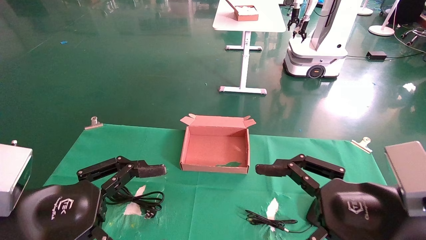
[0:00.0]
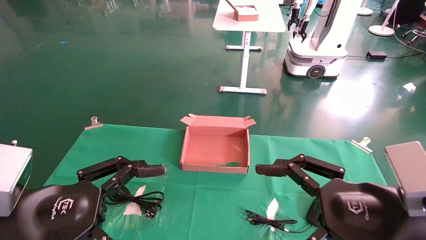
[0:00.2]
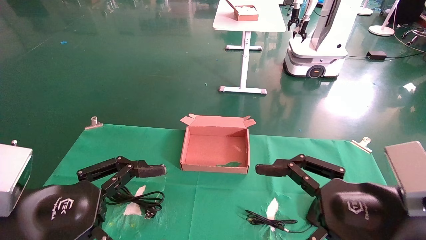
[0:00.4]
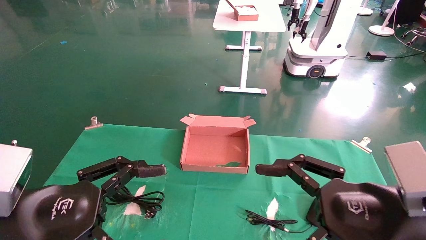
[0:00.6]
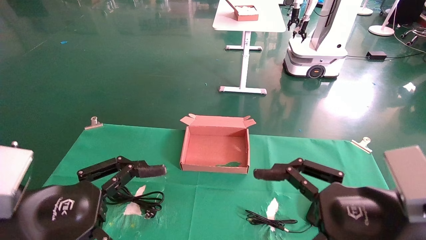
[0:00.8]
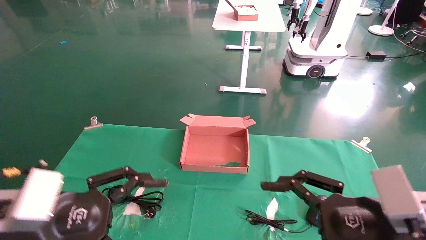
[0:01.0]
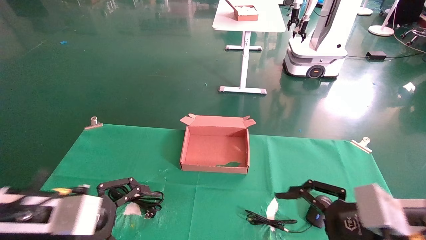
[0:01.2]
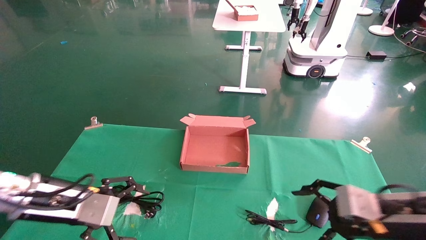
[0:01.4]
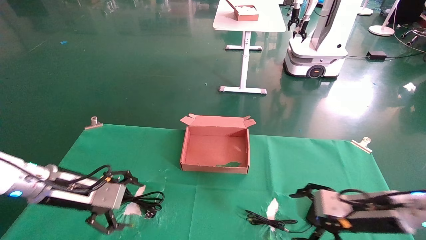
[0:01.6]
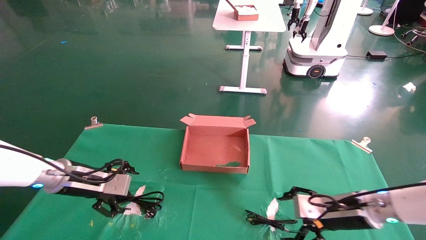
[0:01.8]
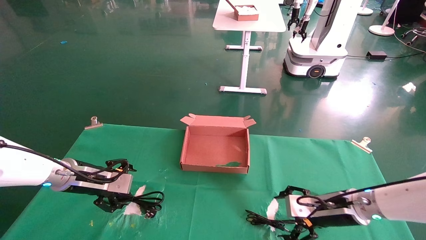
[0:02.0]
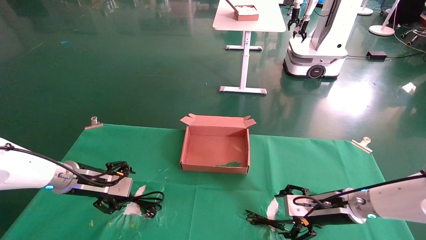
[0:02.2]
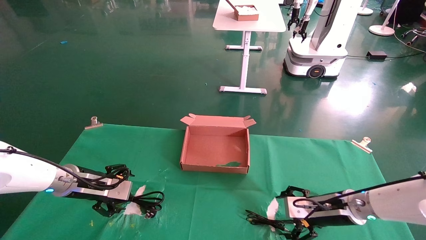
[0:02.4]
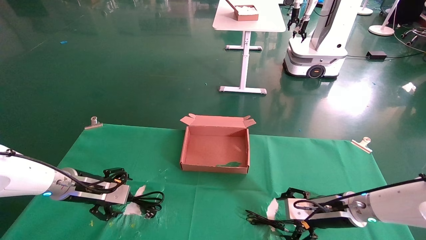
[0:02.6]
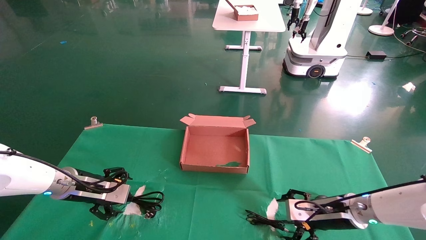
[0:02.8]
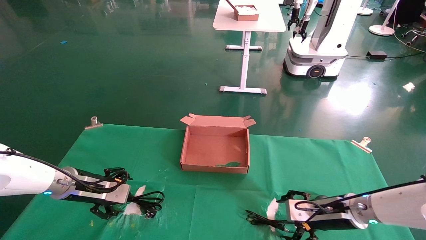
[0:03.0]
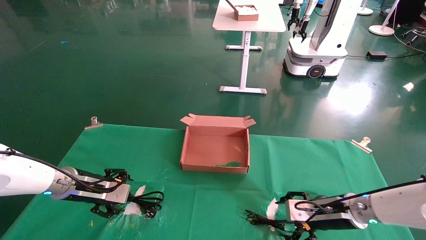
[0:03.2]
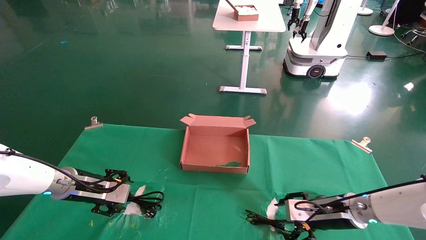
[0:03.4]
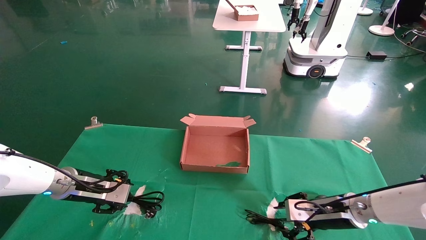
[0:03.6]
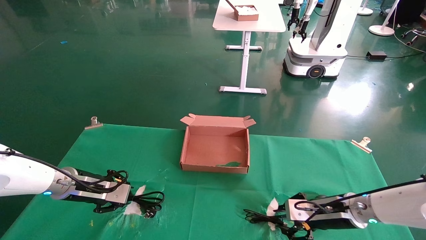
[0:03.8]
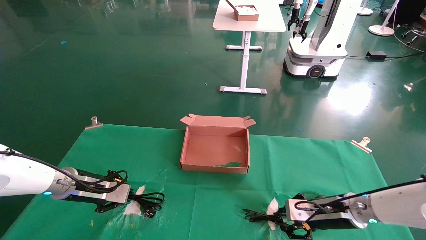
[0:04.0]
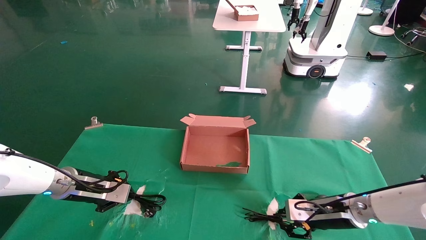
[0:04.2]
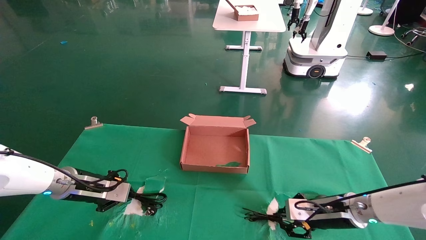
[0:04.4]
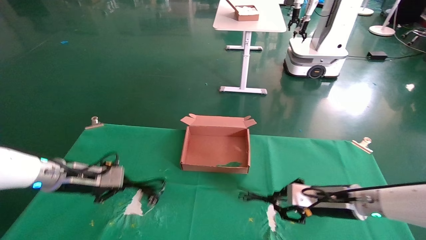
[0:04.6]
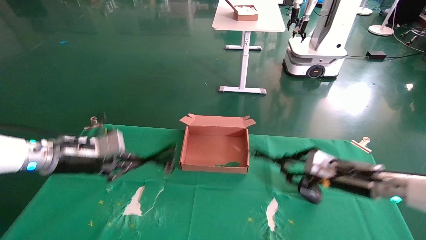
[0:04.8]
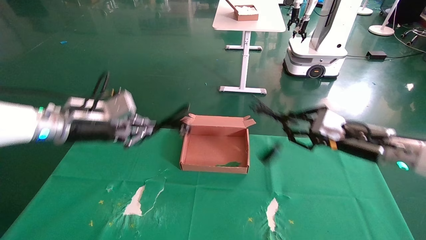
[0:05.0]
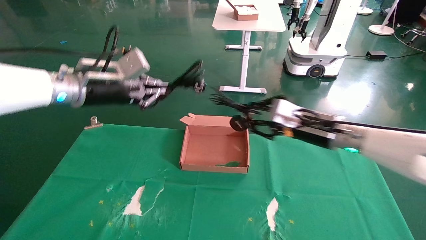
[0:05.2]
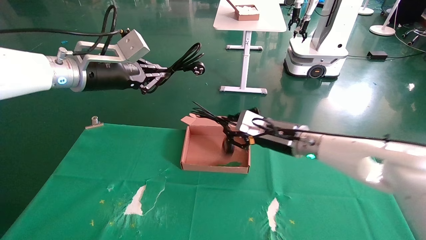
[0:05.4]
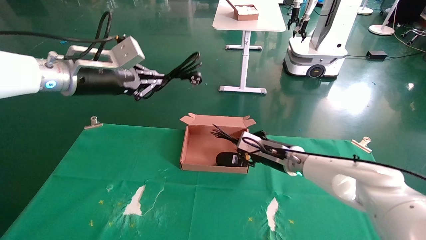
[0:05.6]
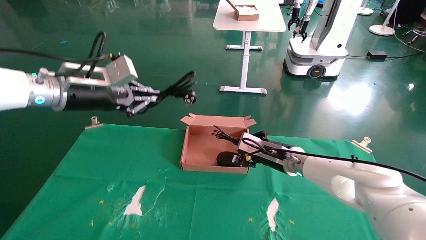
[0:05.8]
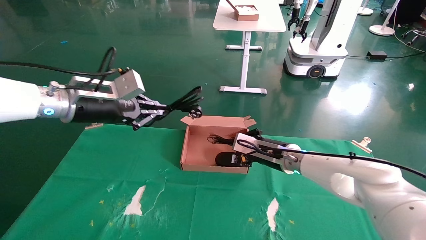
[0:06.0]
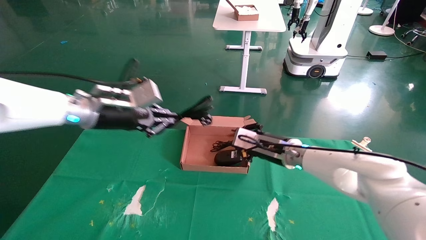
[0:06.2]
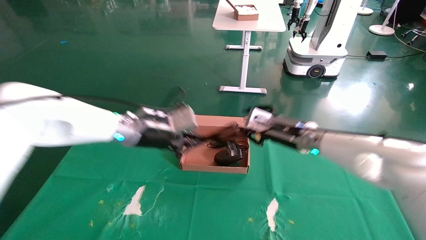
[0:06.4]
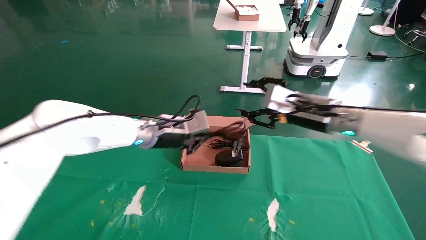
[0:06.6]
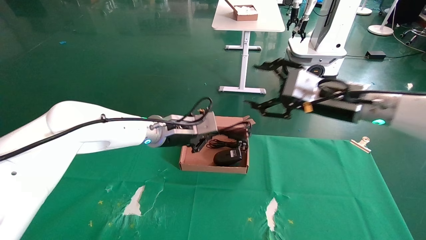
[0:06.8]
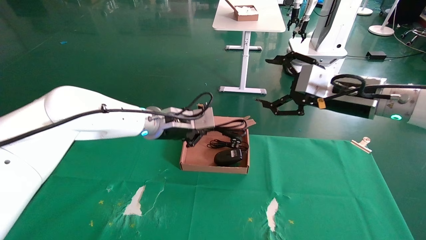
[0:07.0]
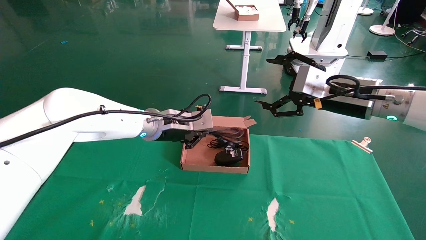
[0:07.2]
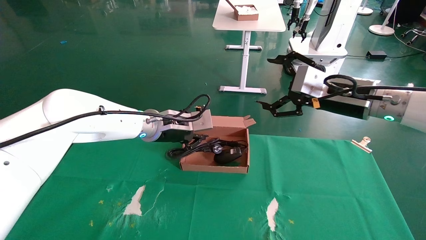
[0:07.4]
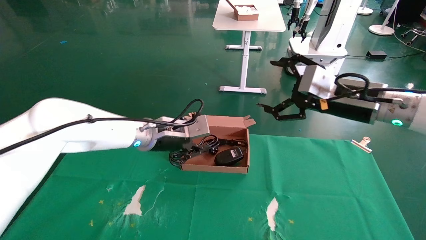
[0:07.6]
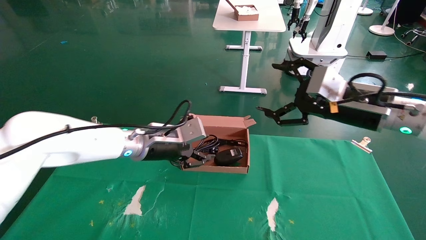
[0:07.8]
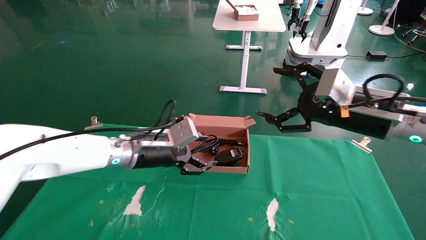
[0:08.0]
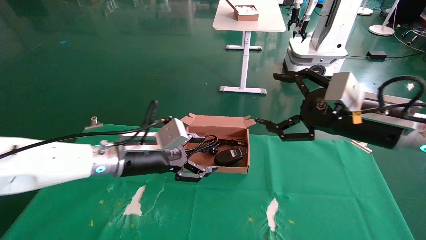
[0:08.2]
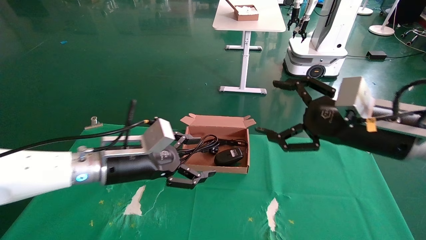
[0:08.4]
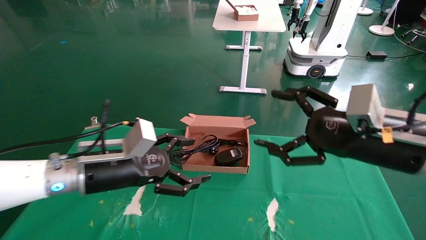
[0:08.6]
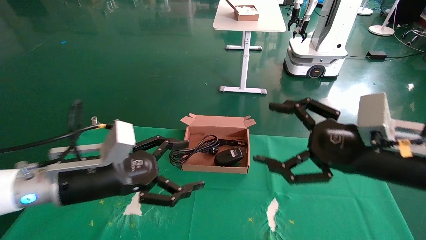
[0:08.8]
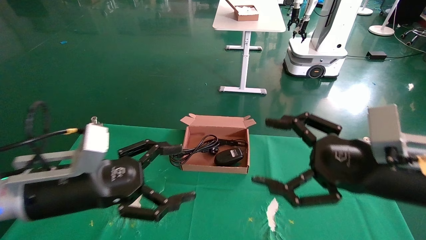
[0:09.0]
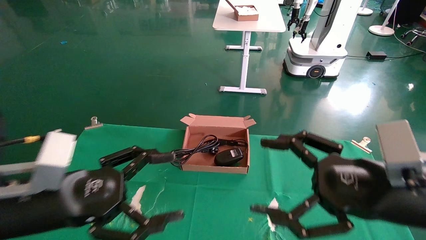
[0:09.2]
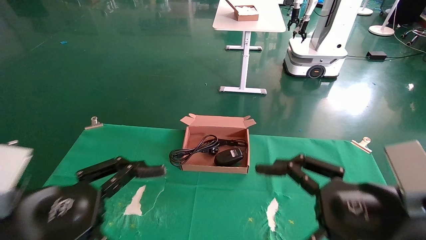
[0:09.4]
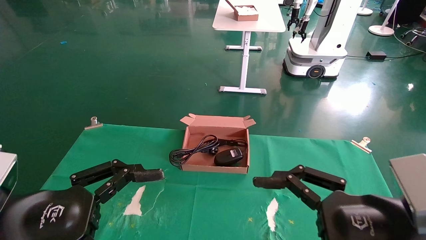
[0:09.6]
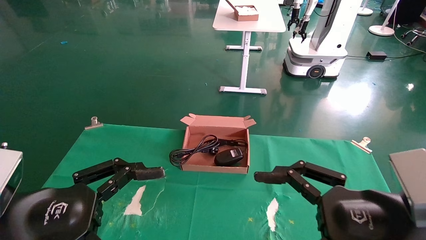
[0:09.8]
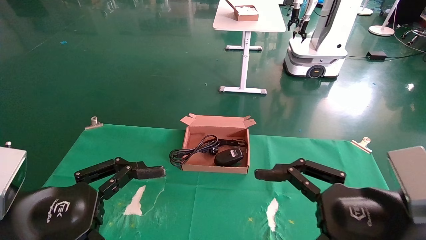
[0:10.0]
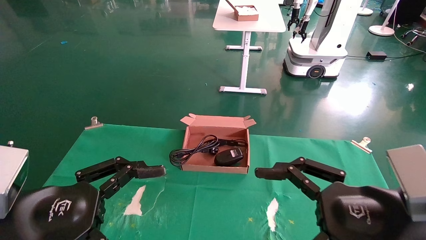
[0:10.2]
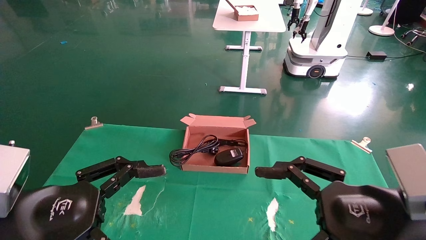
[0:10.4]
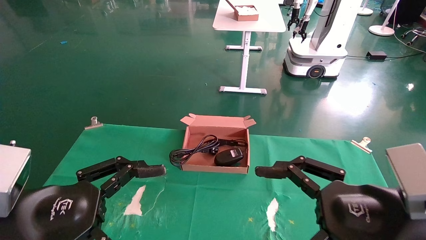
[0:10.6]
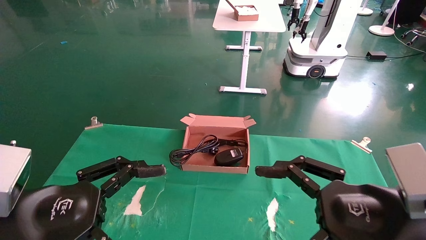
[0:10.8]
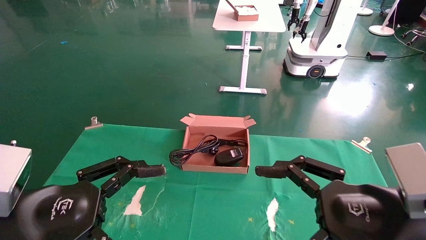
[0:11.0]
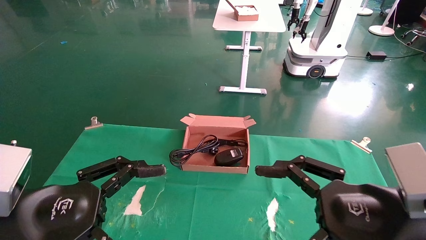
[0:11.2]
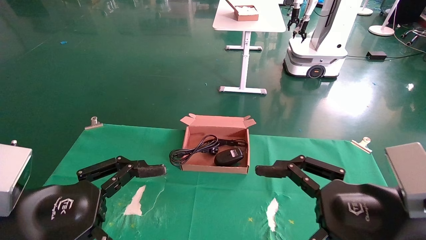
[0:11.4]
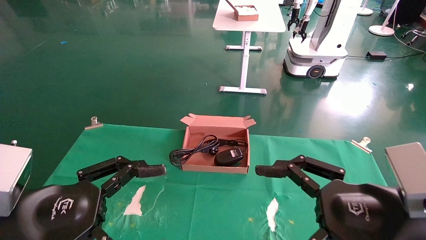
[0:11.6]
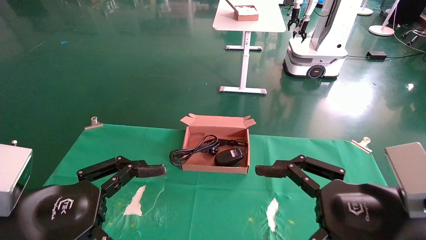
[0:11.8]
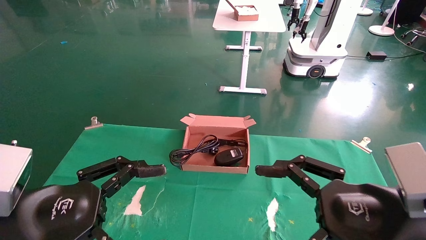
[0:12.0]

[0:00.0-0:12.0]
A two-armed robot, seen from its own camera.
Step, 0:01.2 to 0:04.2: Grab and lift both the mouse and power cord from the accessory packaging area at the same time.
Step, 0:04.4 to 0:07.6: Place the mouse and power cord into the box.
0:00.0 to 0:01.6: The right gripper travels forward and downward by roughly 20 cm. Meanwhile the left gripper moves forward, some 20 cm.
0:01.6 to 0:03.0: The left gripper heads forward, covering some 5 cm. Meanwhile the right gripper goes some 10 cm forward and downward.
0:03.0 to 0:04.4: The left gripper closes up; the right gripper closes its fingers.
0:04.4 to 0:06.0: The left gripper goes approximately 20 cm upward and to the right. The right gripper shifts some 15 cm to the left, upward and forward.
0:06.0 to 0:07.6: The left gripper goes some 15 cm to the right and downward, while the right gripper moves upward, backward and to the right, approximately 20 cm, and opens.
0:07.6 to 0:09.0: The right gripper is displaced backward and downward by some 15 cm. The left gripper moves backward and to the left, some 20 cm, and opens up.
0:09.0 to 0:10.4: Both grippers move backward, about 5 cm.
0:10.4 to 0:12.0: Neither gripper changes place.
